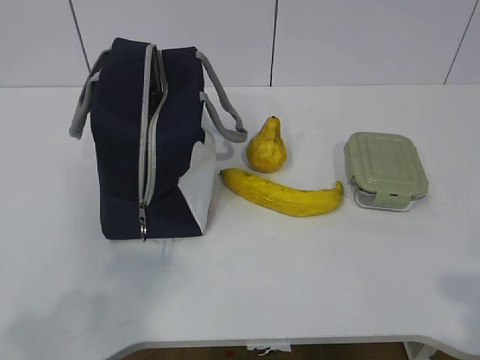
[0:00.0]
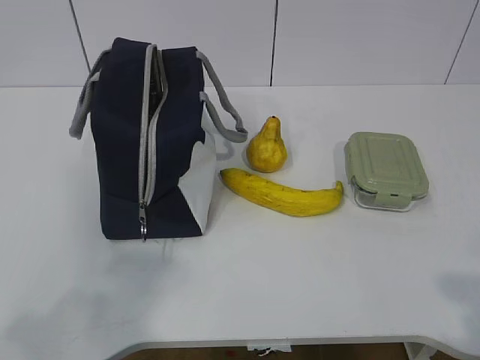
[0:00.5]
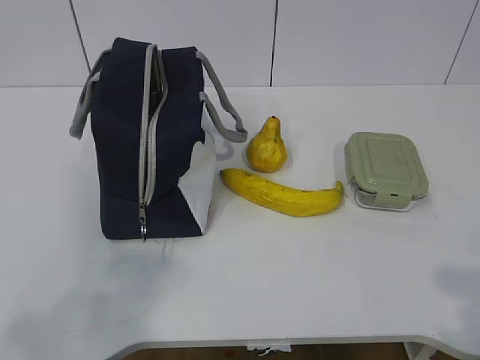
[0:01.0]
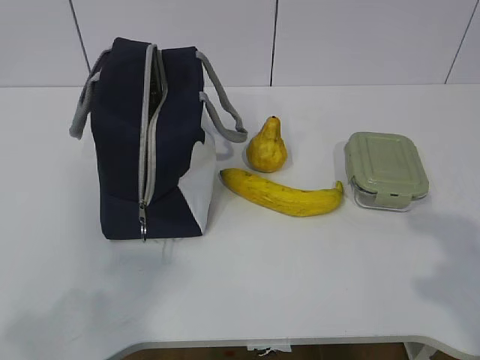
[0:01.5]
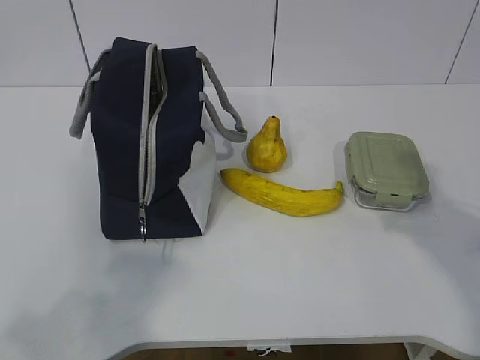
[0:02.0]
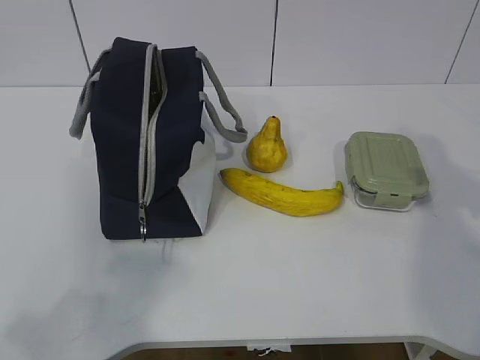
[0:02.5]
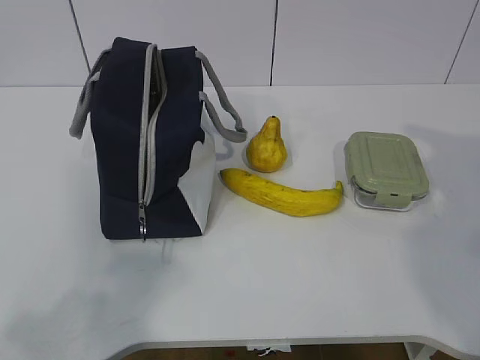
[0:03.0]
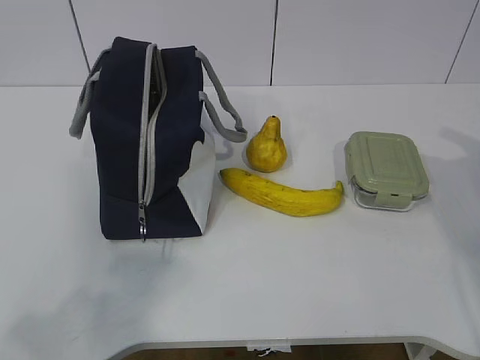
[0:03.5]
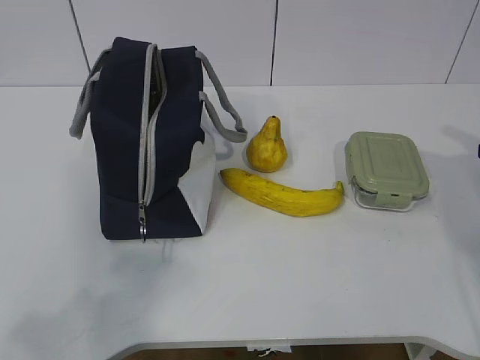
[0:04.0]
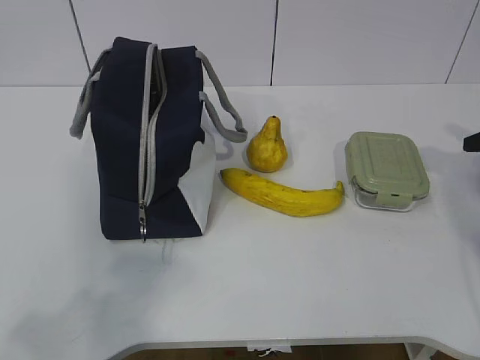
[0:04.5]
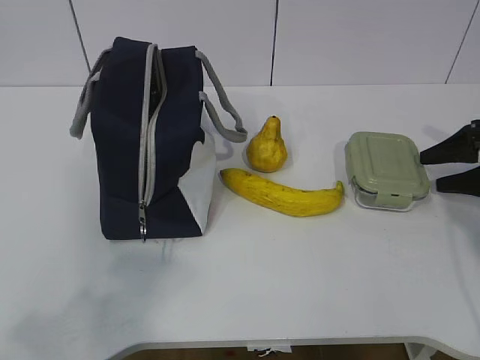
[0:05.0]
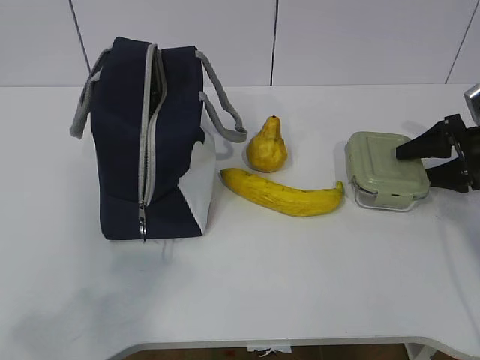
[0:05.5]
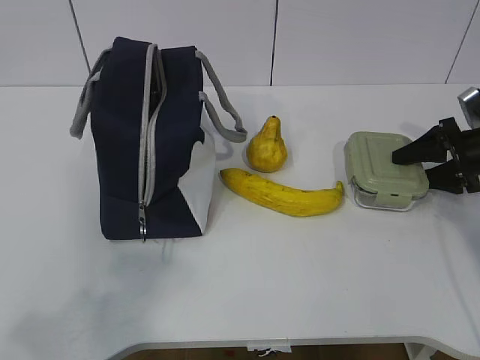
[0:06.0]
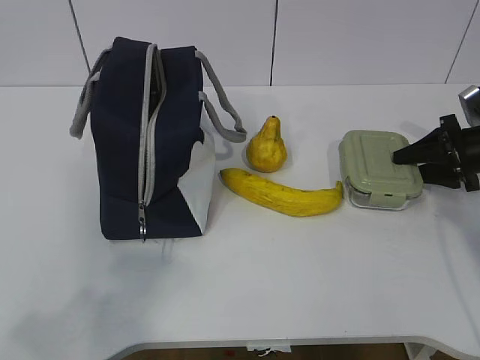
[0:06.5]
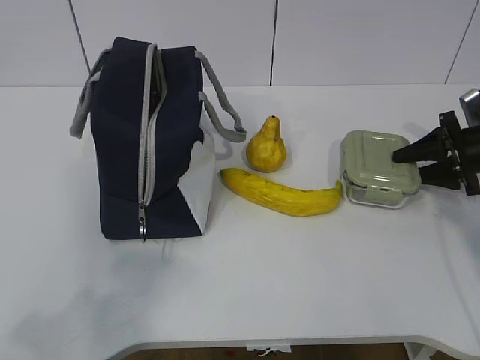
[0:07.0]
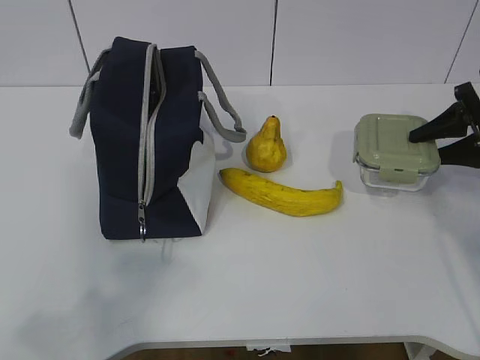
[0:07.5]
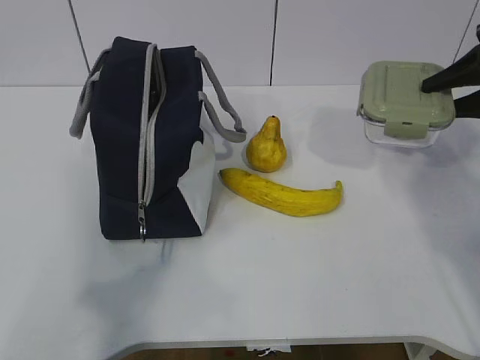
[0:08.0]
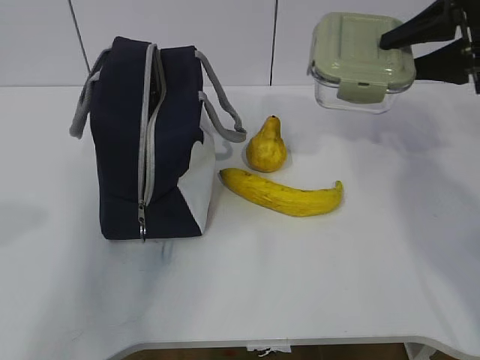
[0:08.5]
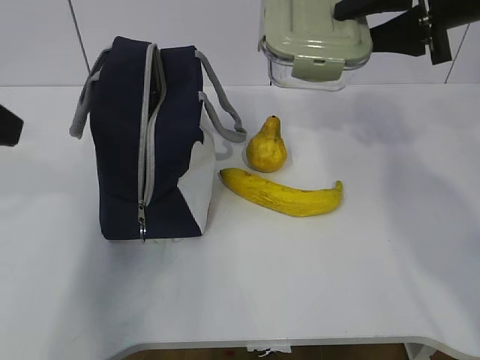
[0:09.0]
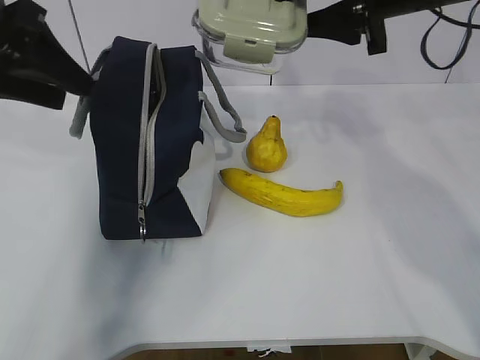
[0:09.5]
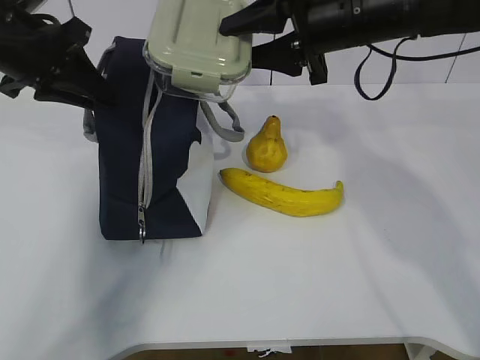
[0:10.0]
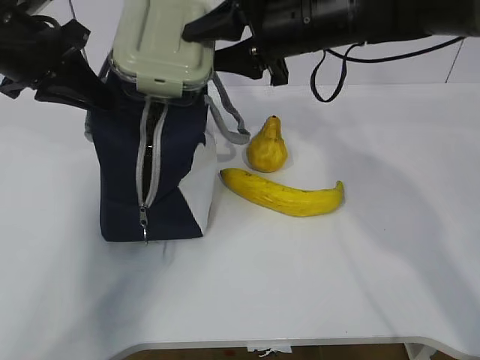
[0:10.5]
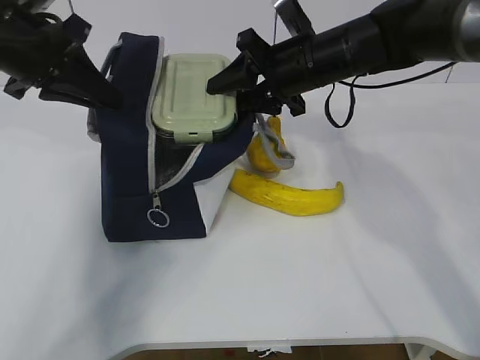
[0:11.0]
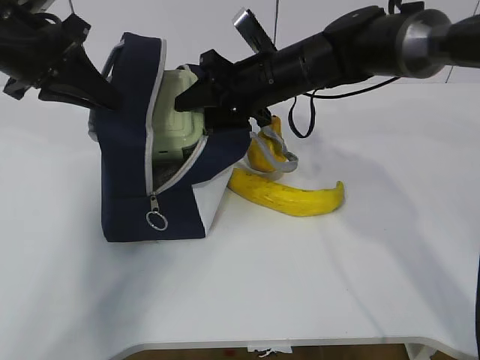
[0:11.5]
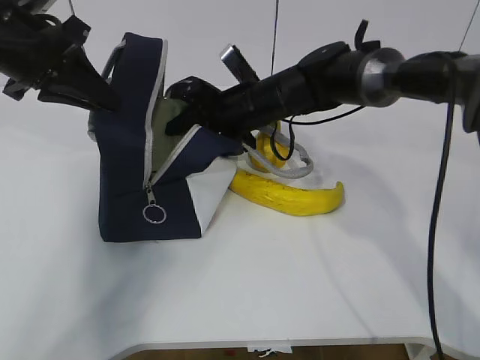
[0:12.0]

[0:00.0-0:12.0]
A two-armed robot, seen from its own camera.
Step, 0:00.0 to 0:05.0: Grab the lunch box with your right hand.
Step, 0:05.5 to 0:08.5: Grab the lunch bag with your left hand.
Step, 0:09.0 to 0:10.5: Place it into the bag with your right hand.
0:04.0 to 0:06.0: The right gripper goes some 10 cm forward and downward.
0:06.0 to 0:08.0: The right gripper moves upward, about 15 cm.
0:08.0 to 0:10.0: The left gripper travels forward by approximately 35 cm, and opens, then closes once more. The right gripper heads to the left, covering some 20 cm.
0:10.0 to 0:12.0: The right gripper heads downward, to the left and forward, covering roughly 15 cm.

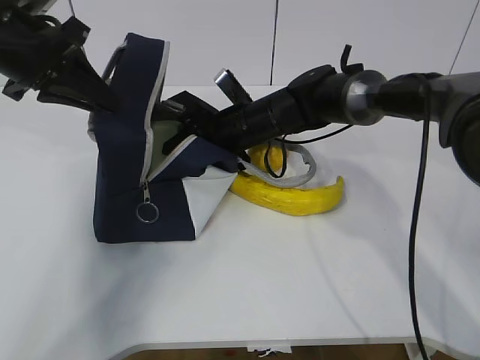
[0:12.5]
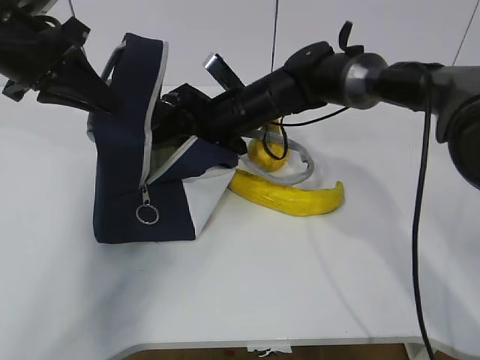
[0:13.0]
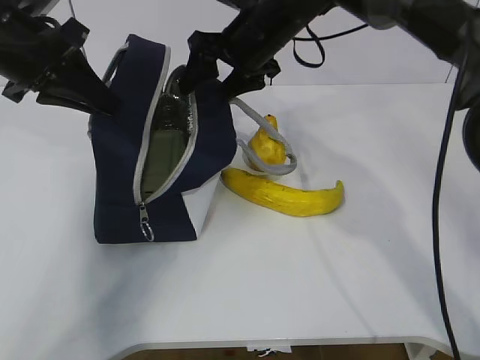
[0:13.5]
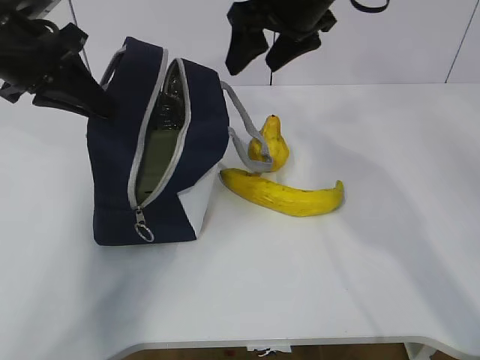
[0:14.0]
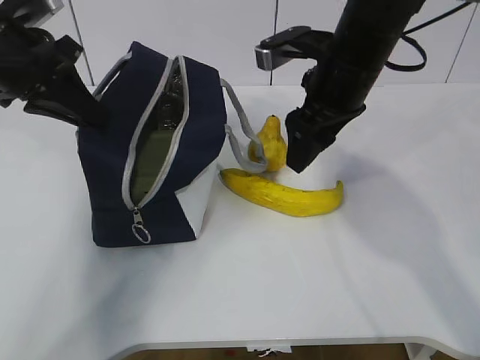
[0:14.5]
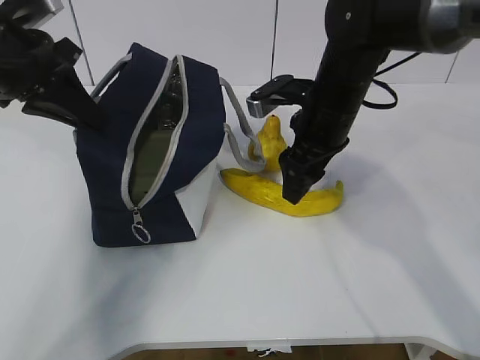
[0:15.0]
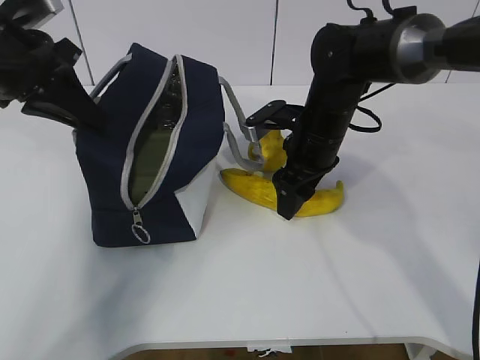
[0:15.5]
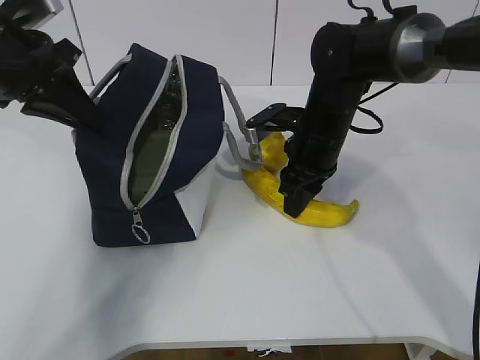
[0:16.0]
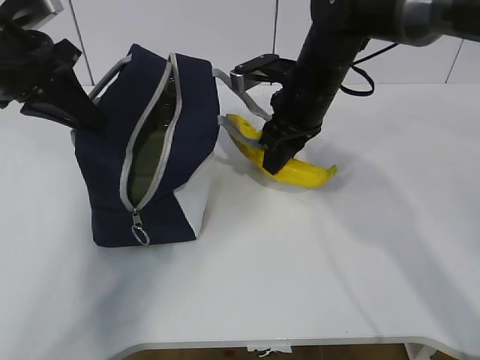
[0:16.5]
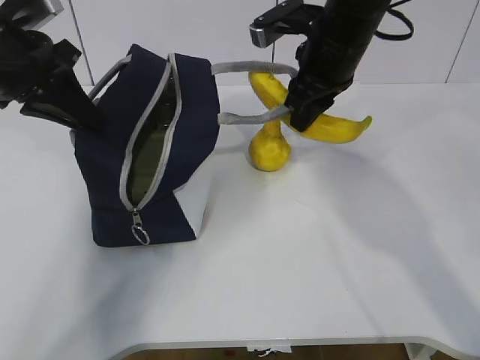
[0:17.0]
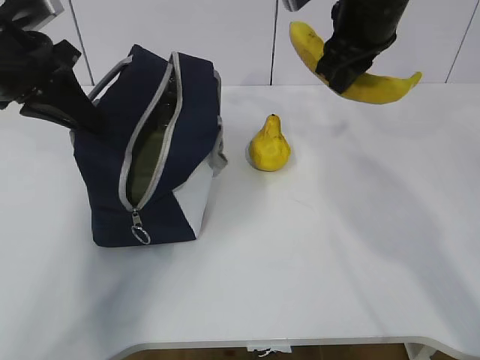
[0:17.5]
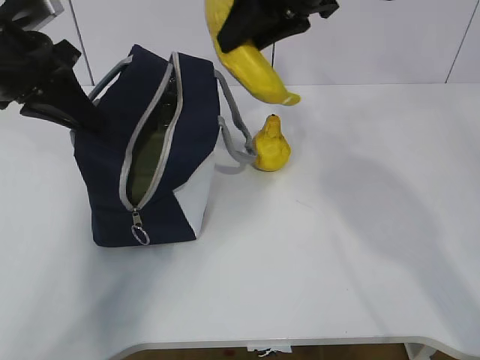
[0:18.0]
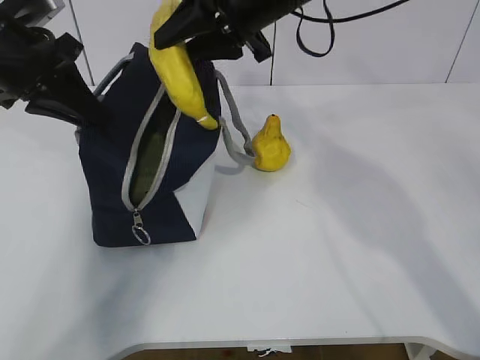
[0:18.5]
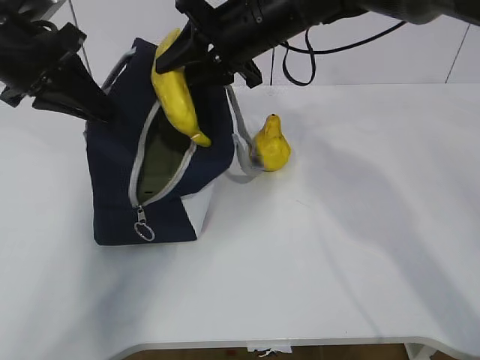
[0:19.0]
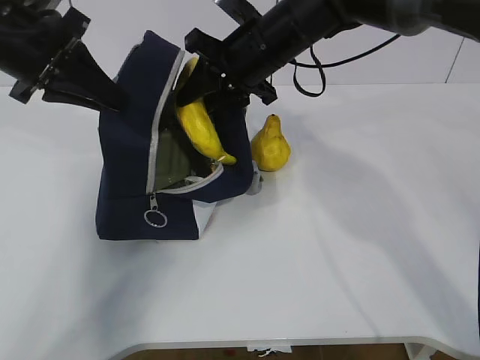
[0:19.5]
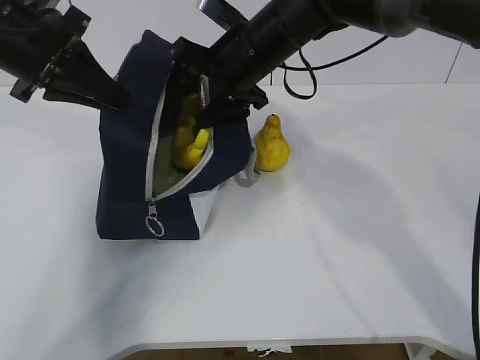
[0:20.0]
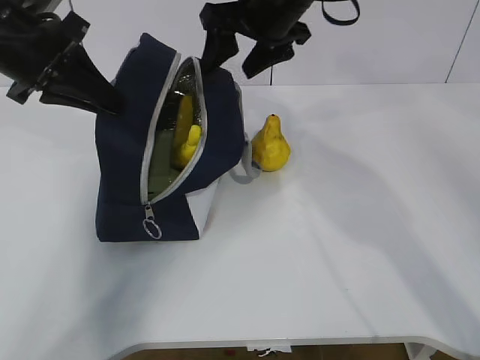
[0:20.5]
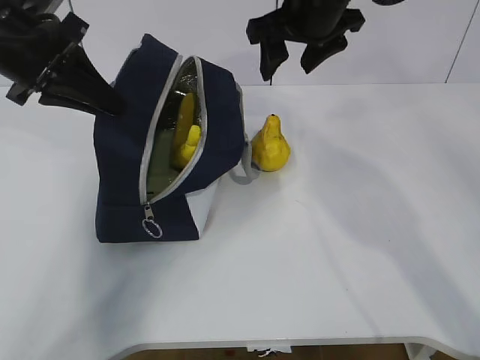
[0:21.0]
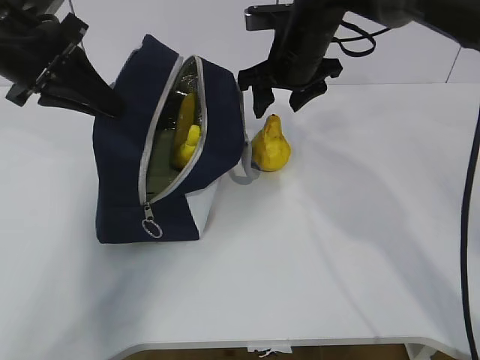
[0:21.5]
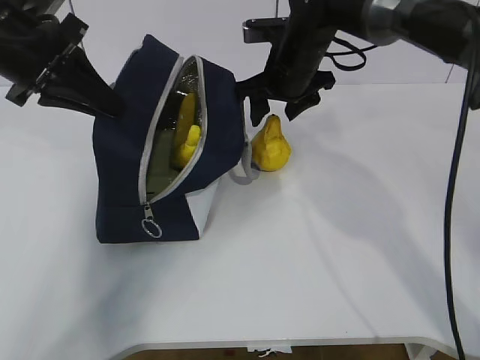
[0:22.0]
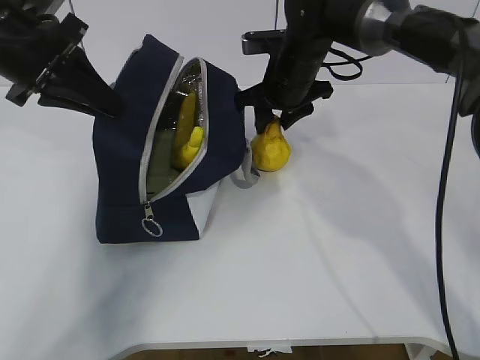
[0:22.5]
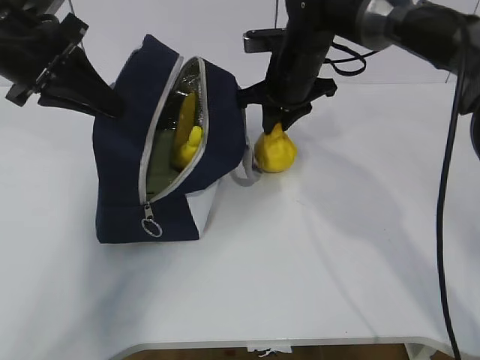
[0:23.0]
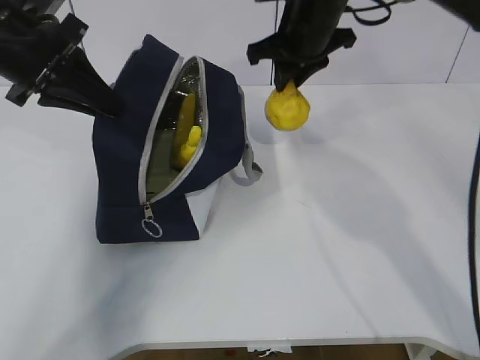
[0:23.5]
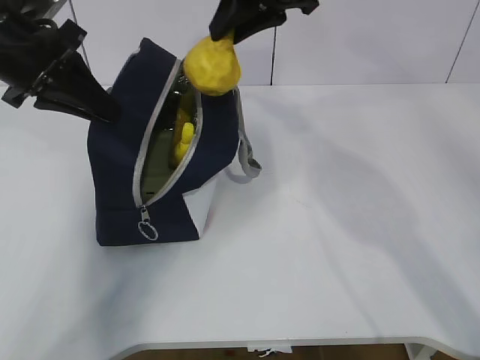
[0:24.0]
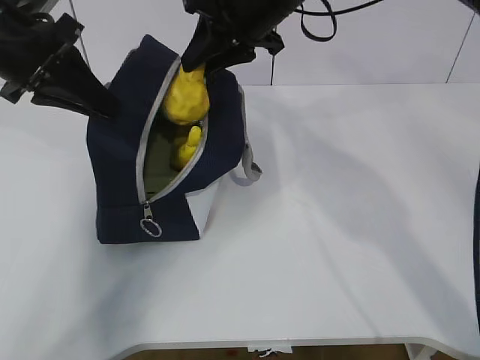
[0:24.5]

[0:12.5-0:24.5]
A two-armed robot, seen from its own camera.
Step, 0:13.5 to 0:16.5: Place it into the bag with your right hand.
Step, 0:17.0 to 0:18.5: Grab the pear with your right hand.
Step, 0:22.0 to 0:23.0: Move the lunch bag to the right.
0:12.5 to 0:14.5: The right gripper moves upward, to the right and backward, approximately 15 cm, and opens up.
0:14.5 to 0:16.5: The right gripper changes place by approximately 5 cm, and closes.
0:16.5 to 0:18.5: The right gripper heads upward, covering about 10 cm.
0:18.5 to 0:20.5: The right gripper opens its fingers.
0:20.5 to 0:22.5: The right gripper shifts approximately 10 cm downward.
0:22.5 to 0:24.5: The right gripper goes about 10 cm upward.

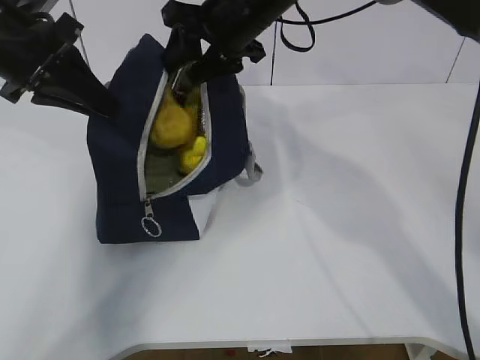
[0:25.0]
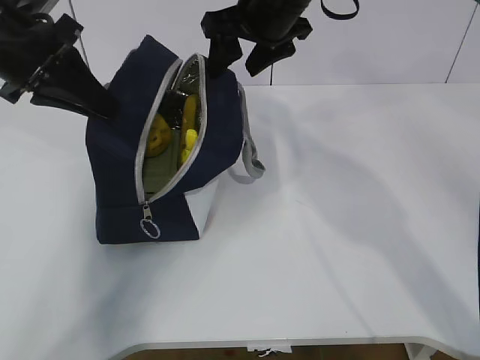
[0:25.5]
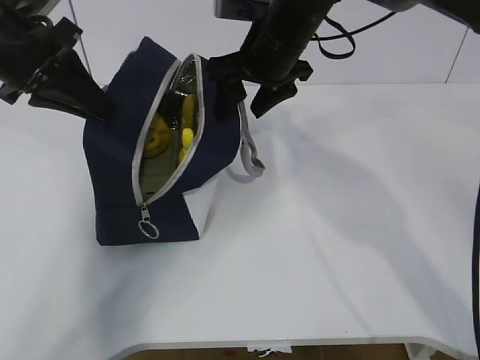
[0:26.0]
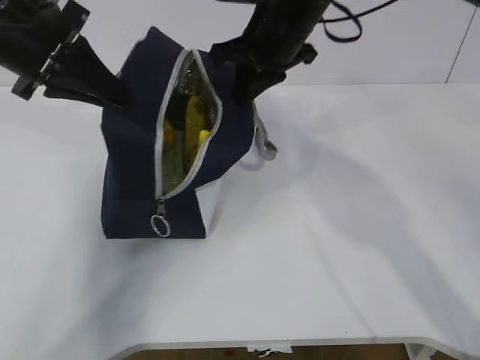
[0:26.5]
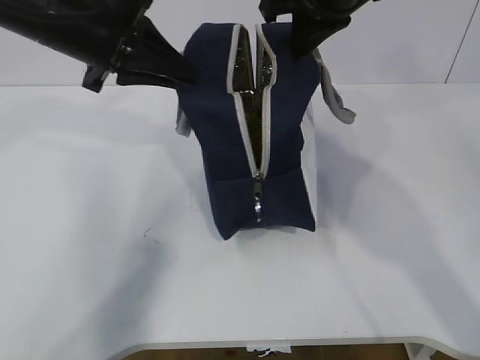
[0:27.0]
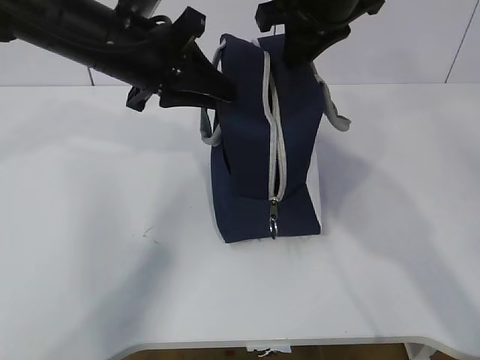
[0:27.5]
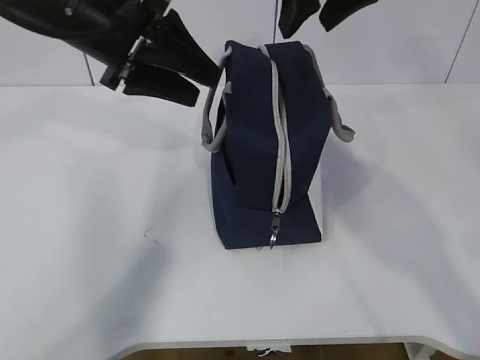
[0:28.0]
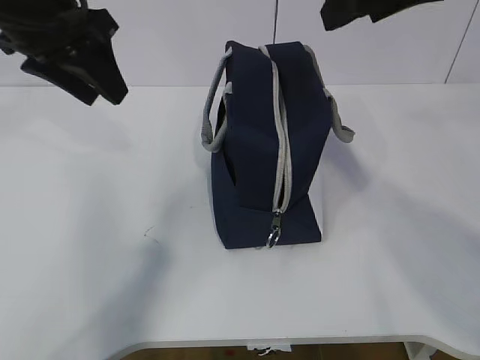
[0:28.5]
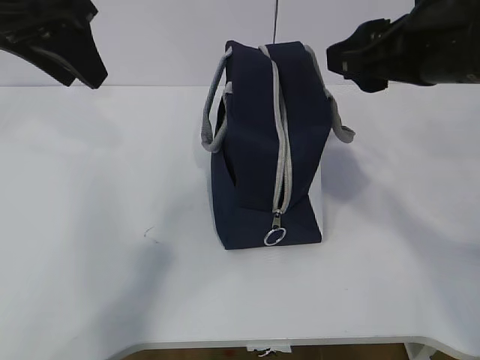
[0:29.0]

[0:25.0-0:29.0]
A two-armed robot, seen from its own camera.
0:25.0 to 0:27.0: The left gripper goes some 5 cm to the right, while the right gripper travels to the right and upward by some 10 cm, and closes its fingers.
0:27.0 to 0:29.0: The left gripper goes approximately 5 cm upward, and opens its fingers. Meanwhile the right gripper heads backward and to the right, covering about 15 cm, and opens up.
